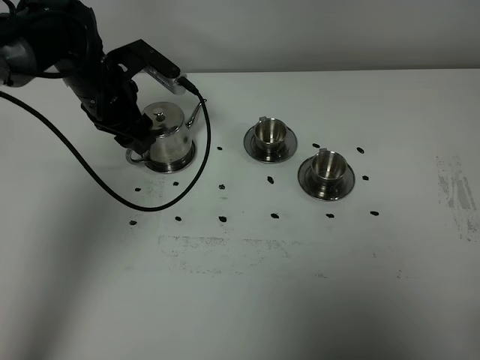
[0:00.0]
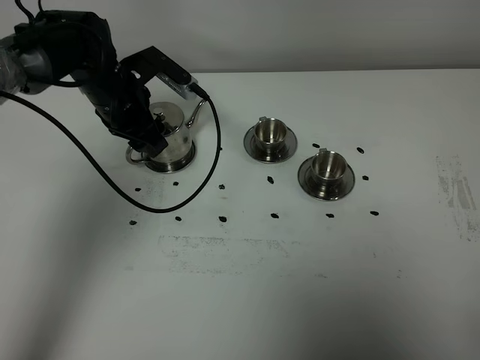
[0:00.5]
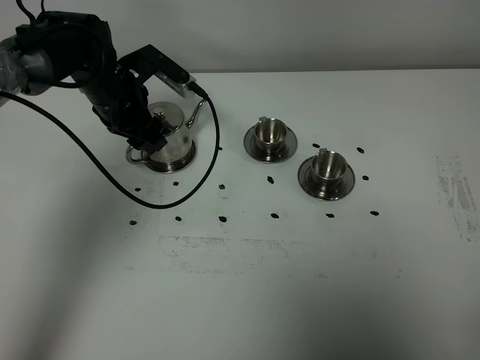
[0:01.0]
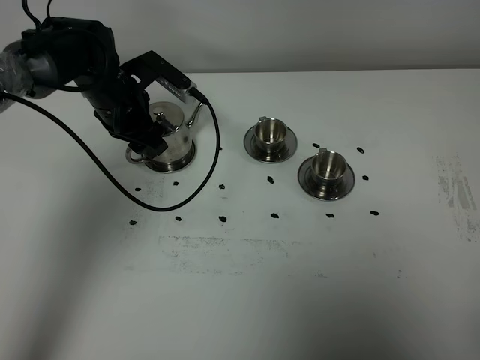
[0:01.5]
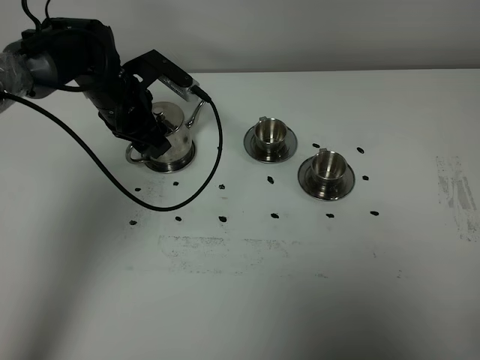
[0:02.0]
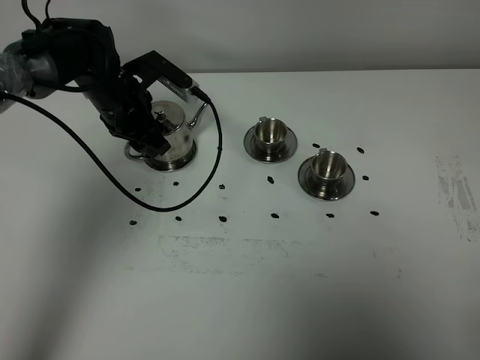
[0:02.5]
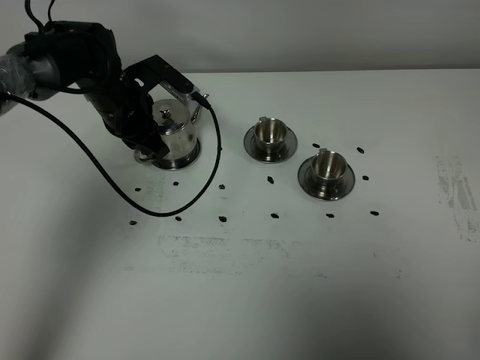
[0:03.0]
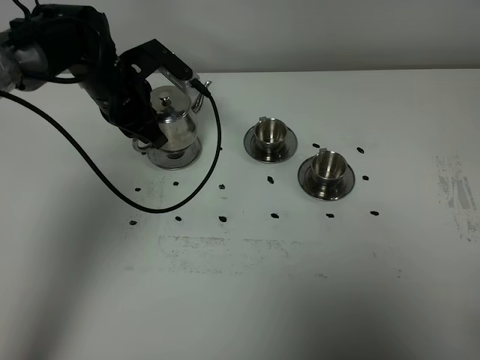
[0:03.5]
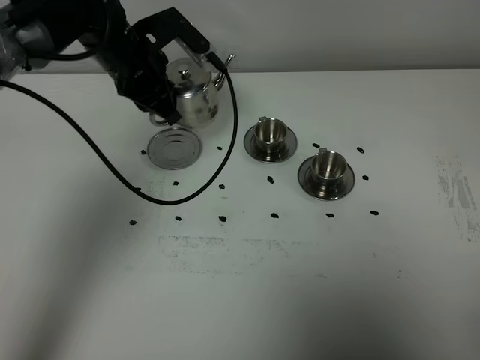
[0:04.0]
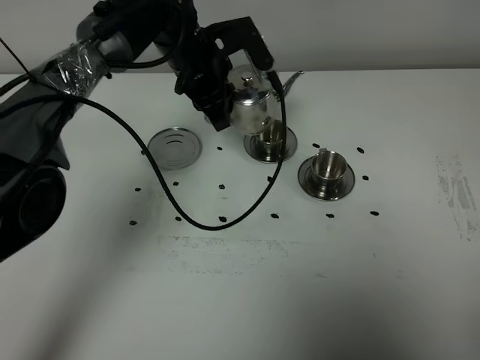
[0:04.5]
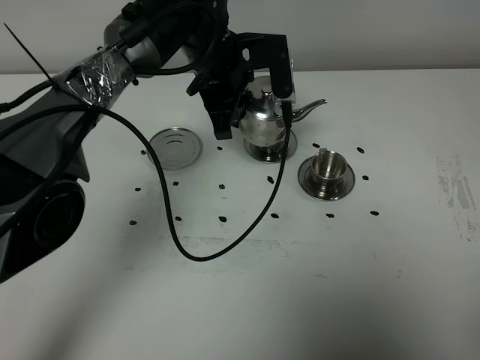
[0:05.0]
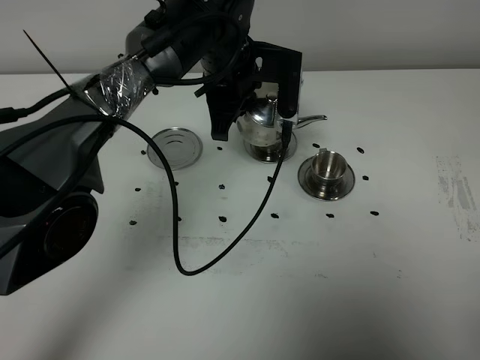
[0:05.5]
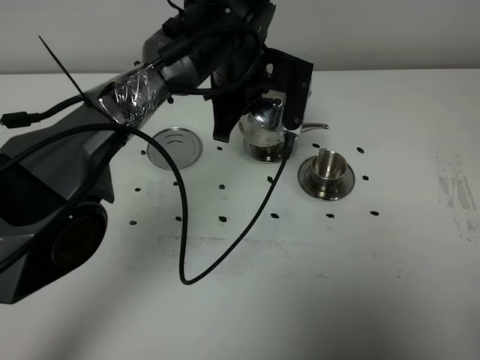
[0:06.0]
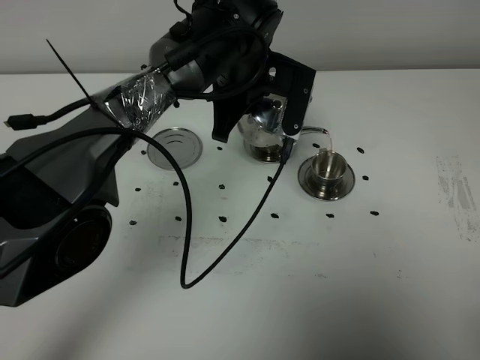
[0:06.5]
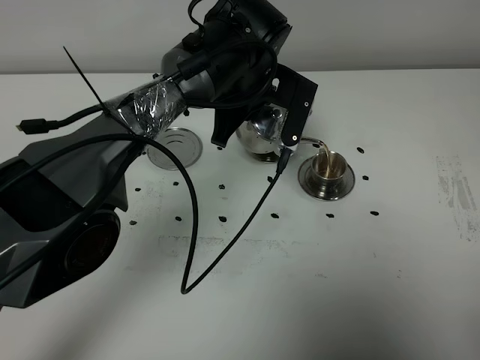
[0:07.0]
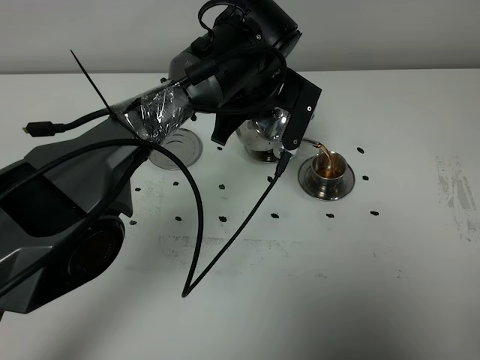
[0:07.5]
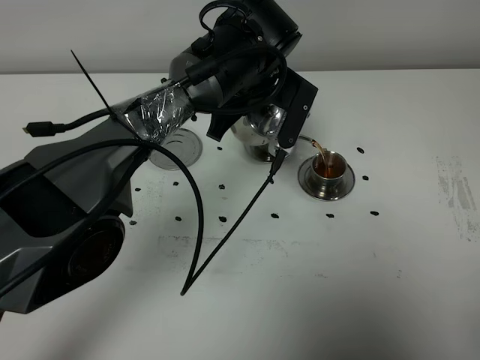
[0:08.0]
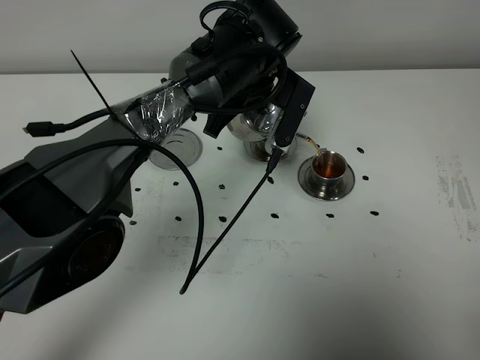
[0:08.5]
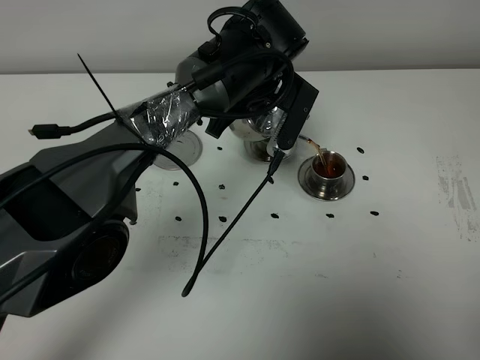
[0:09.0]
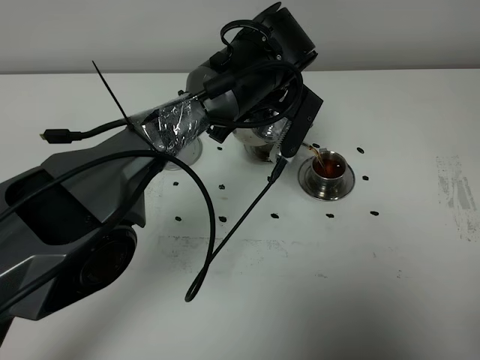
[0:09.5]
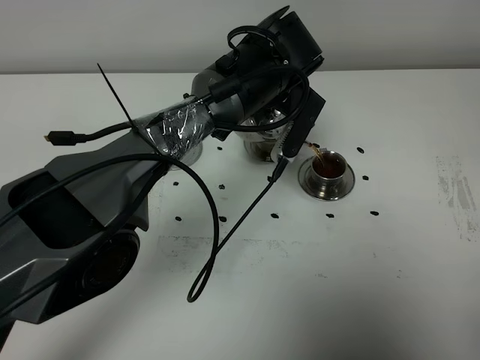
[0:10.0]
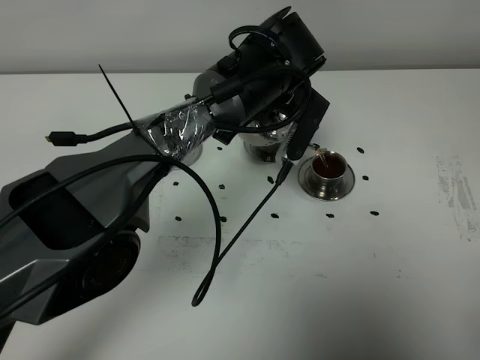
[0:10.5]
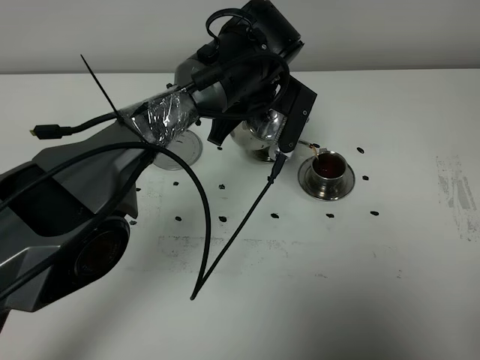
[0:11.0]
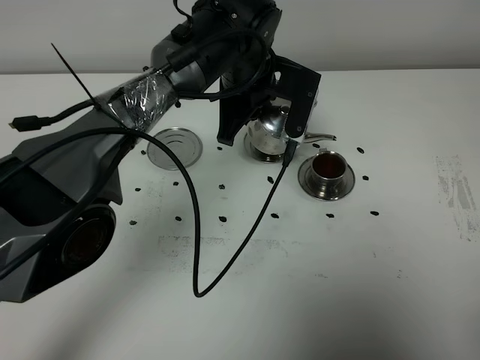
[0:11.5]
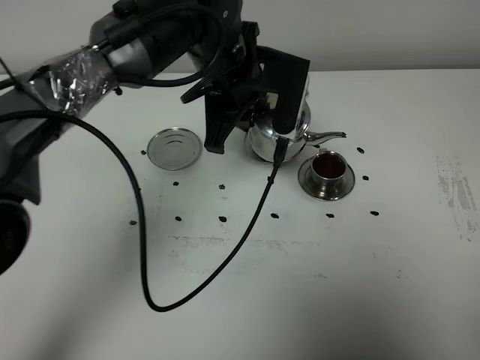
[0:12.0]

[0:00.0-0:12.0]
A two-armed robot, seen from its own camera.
Task of the whole recording: grasp the stainless steel teapot and pour the tea into the two stainless steel teacups one by one, put the stainless steel teapot back in its original place.
Step, 0:00.0 to 0:03.0: Pick up the teapot with the left gripper.
0:00.0 to 0:02.0: The grippers stay close to where they were, moving slightly.
0:02.0 to 0:04.0: The left gripper shifts approximately 5 cm upward, and closes its fingers.
0:04.0 to 0:06.0: The left gripper moves to the right, roughly 15 cm.
0:06.0 to 0:08.0: The grippers make only small movements.
0:08.0 to 0:10.0: There are only small adjustments of the grippers.
0:10.0 to 0:12.0: The left gripper changes place by approximately 5 cm.

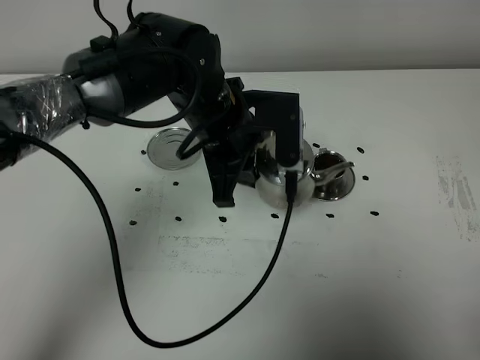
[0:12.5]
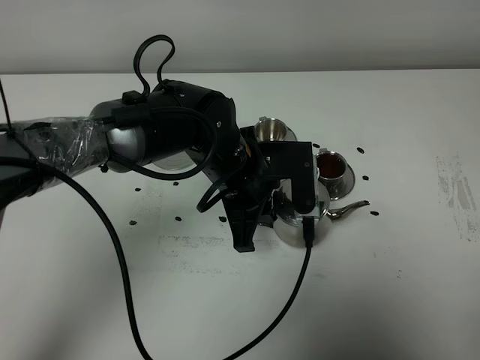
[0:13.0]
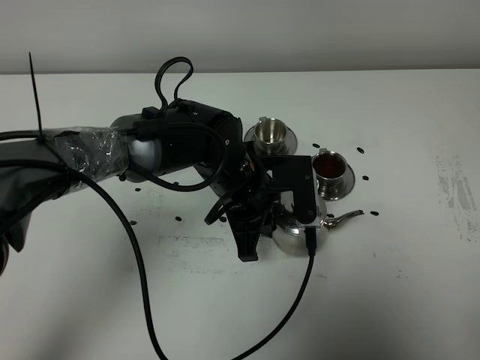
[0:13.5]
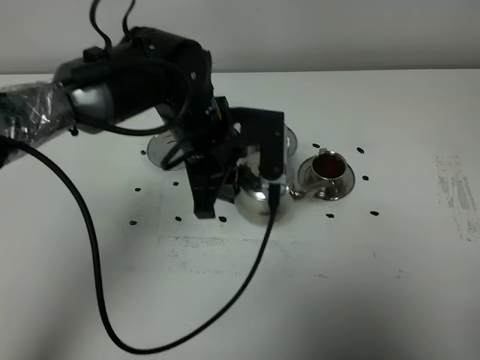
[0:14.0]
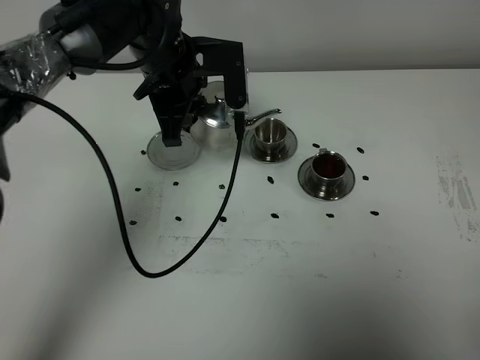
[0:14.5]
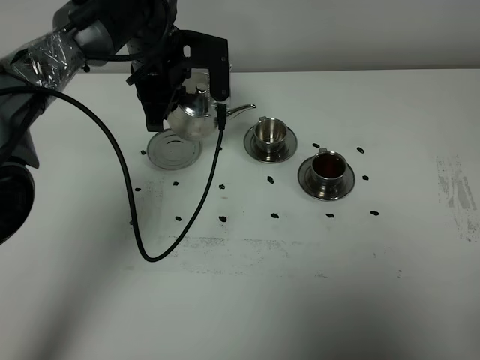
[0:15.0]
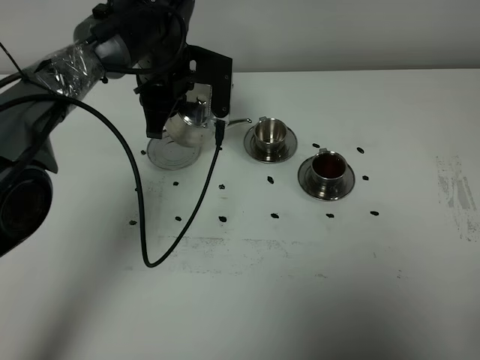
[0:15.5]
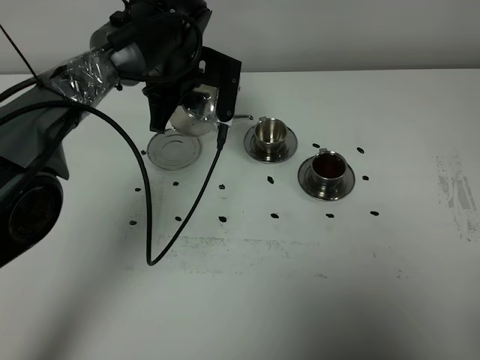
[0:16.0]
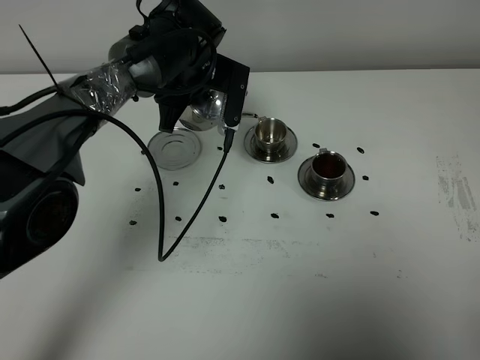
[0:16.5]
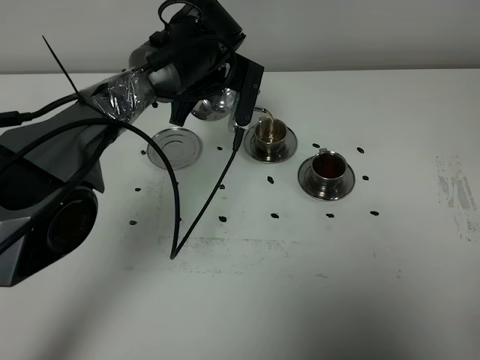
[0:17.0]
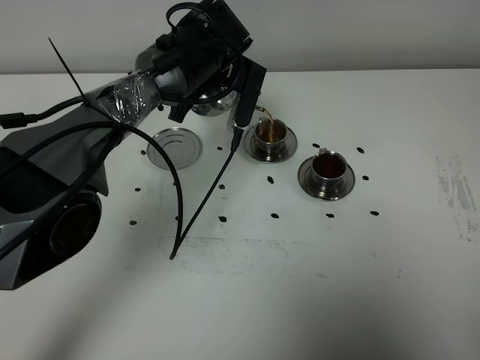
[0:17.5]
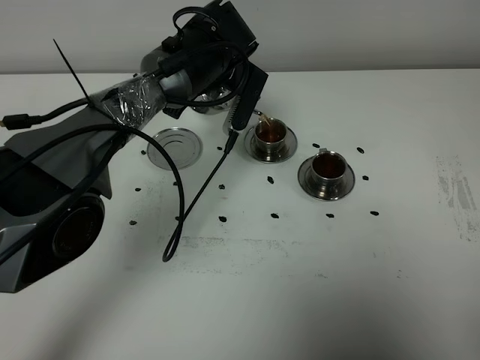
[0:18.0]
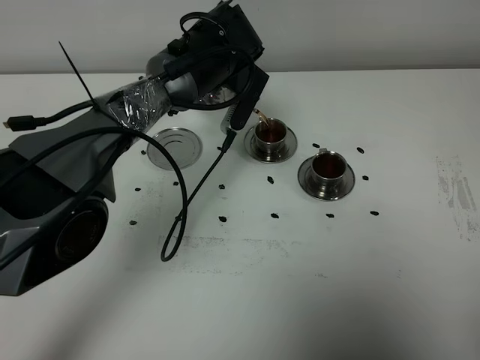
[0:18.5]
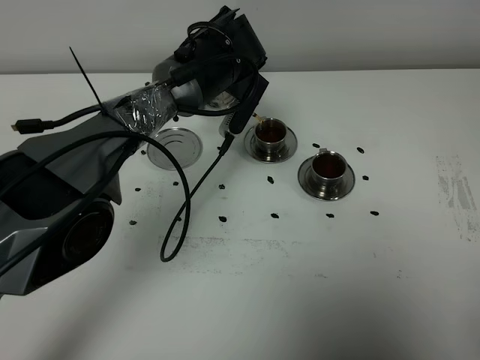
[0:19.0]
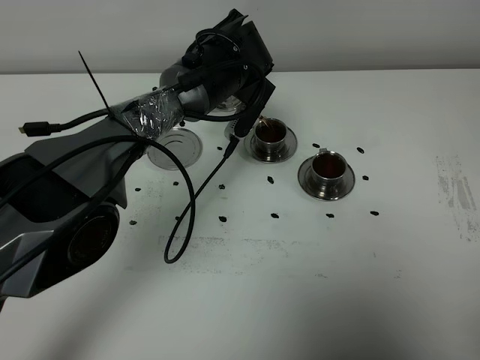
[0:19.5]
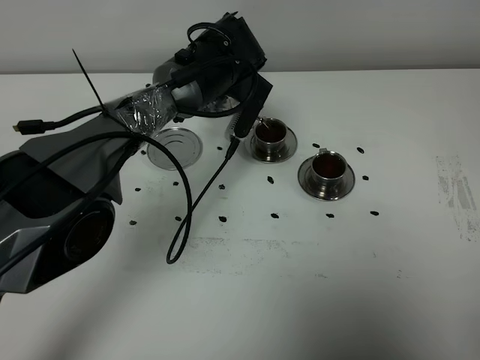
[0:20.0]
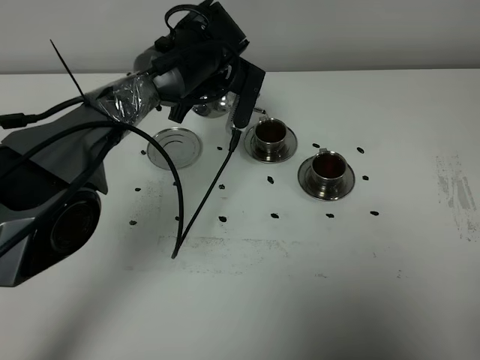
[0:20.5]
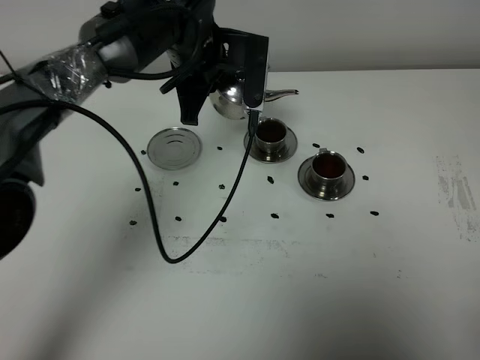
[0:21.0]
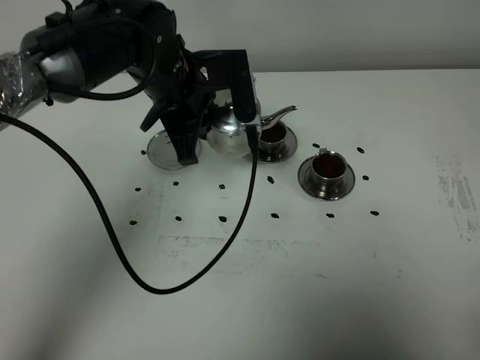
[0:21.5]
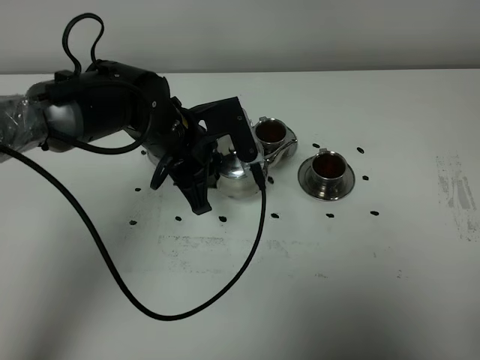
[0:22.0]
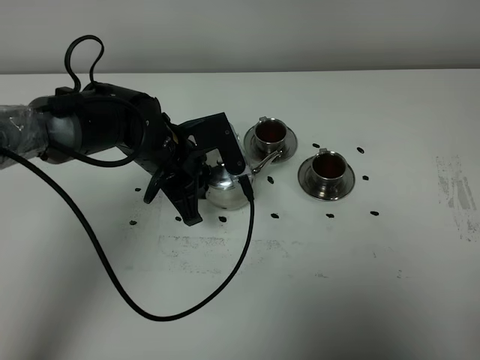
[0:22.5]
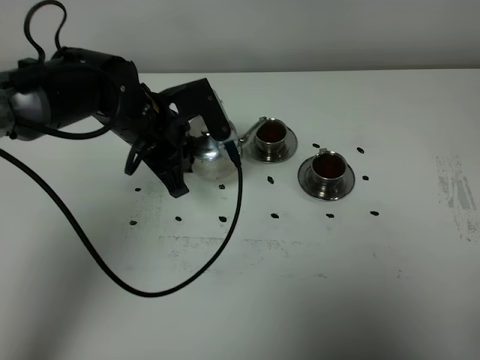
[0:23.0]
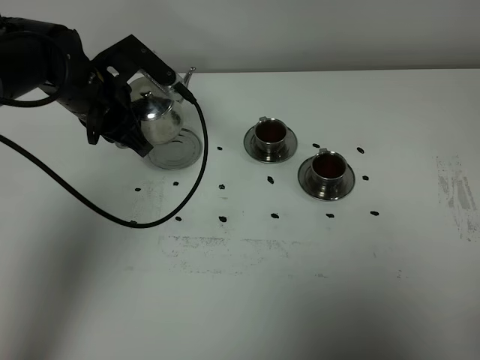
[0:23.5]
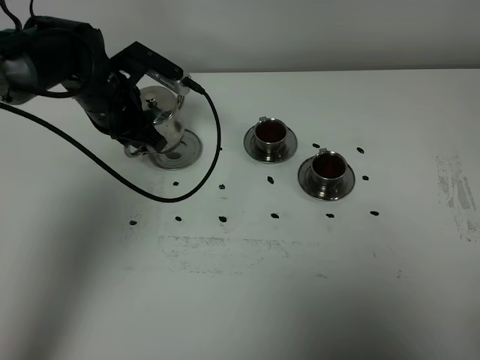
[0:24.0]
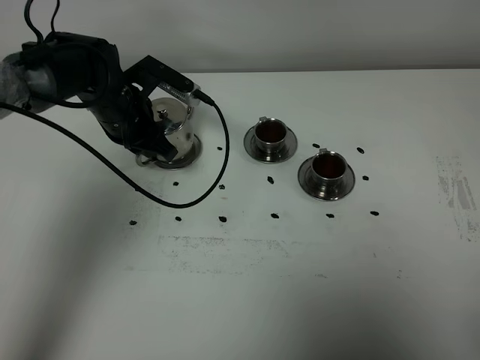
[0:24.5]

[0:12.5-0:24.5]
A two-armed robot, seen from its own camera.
Task of the whole recording: grasp the stainless steel teapot and pour the tea into the two stainless steel teacups one by one, put the stainless steel teapot back in its original place.
Step, 0:12.5 to 0:20.5: Pour tea into the teacup with the left gripper.
0:12.5 to 0:14.5: The left gripper shifts approximately 10 cm forward and to the left.
0:14.5 to 0:16.5: The left gripper moves about 5 cm.
0:18.5 to 0:20.5: There are only small adjustments of the grippers.
0:20.5 to 0:22.5: The left gripper goes approximately 15 cm backward and to the left.
0:22.5 to 0:24.5: The left gripper shifts approximately 10 cm forward and to the left.

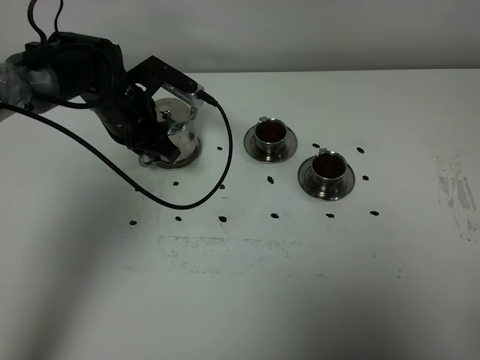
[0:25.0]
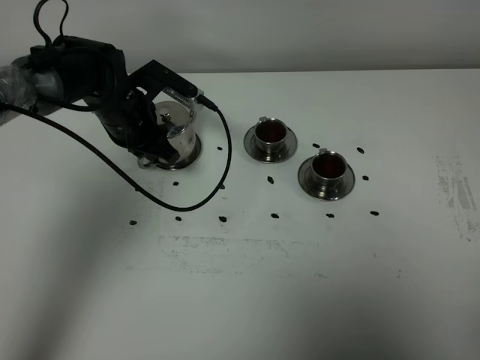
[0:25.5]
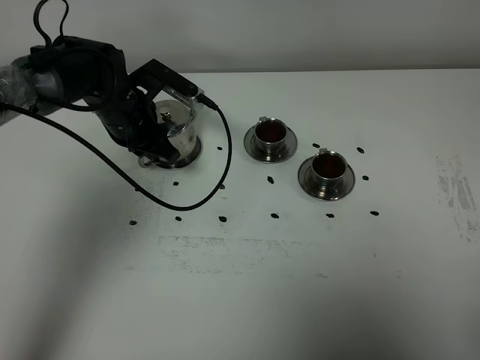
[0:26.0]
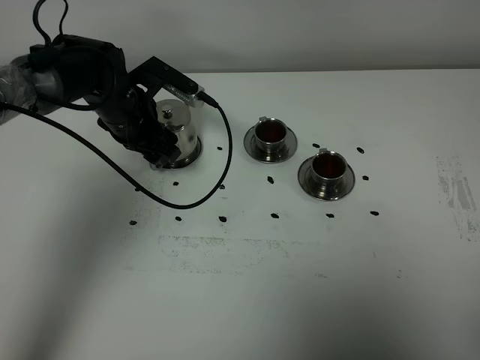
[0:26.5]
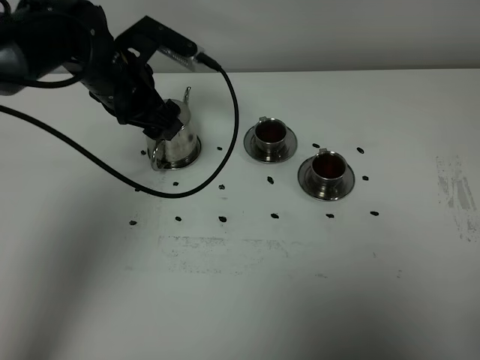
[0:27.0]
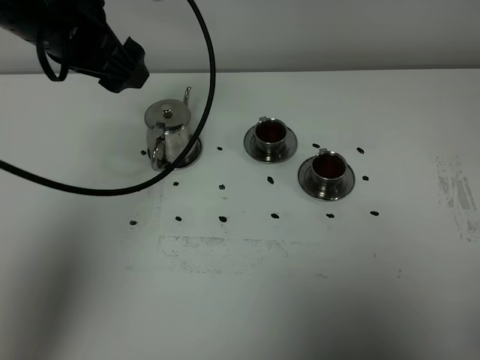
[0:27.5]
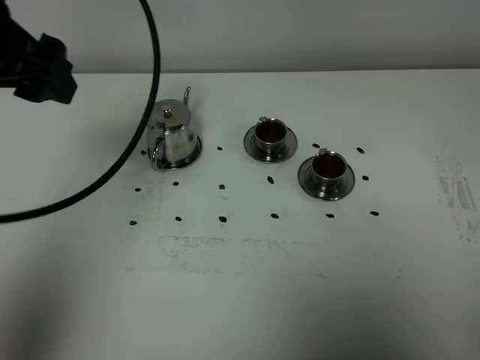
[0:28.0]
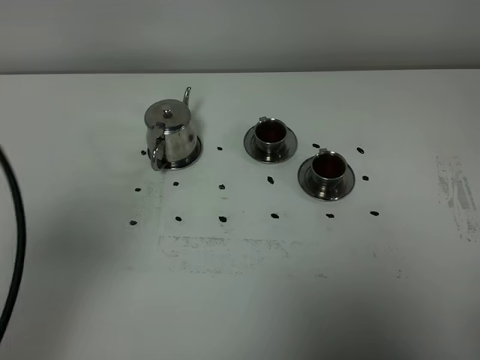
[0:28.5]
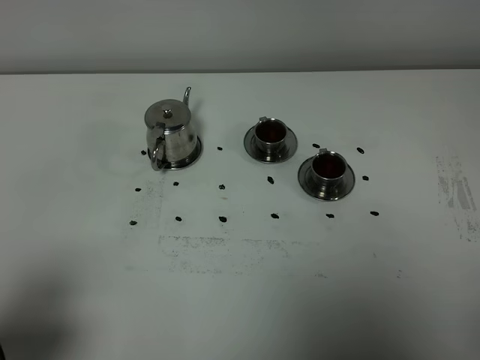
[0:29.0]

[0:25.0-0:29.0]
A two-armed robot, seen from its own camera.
Task of the whole recording: grasp the stainless steel teapot and pour the tea into the two stainless steel teacups one by one, put the stainless steel teapot back in its original place.
0:25.0 to 0:27.0: The left gripper moves upward, approximately 5 cm, and opens.
0:27.0 to 0:29.0: The left gripper travels backward by some 35 cm.
